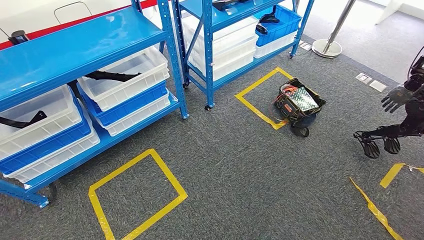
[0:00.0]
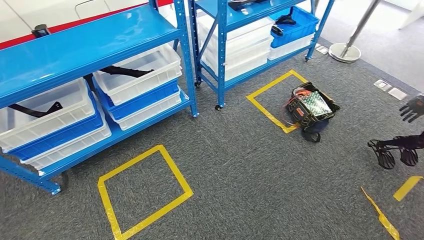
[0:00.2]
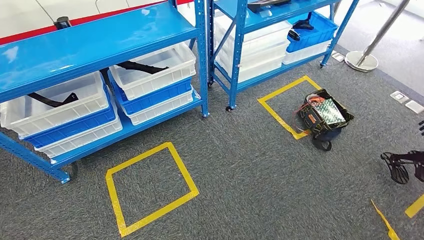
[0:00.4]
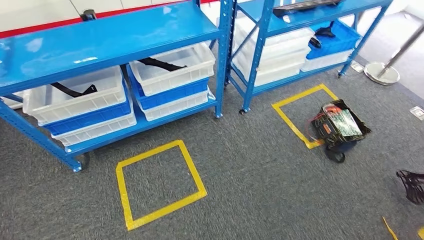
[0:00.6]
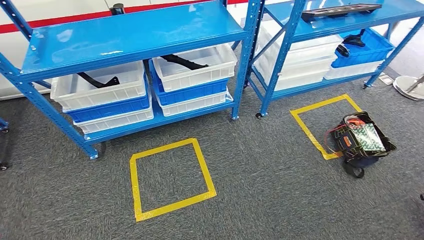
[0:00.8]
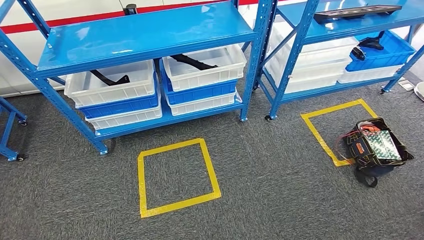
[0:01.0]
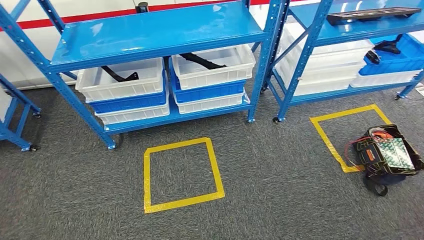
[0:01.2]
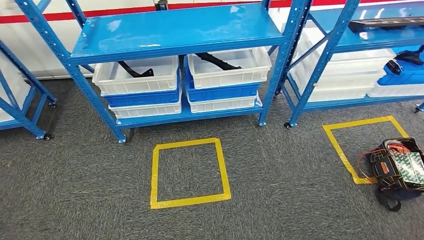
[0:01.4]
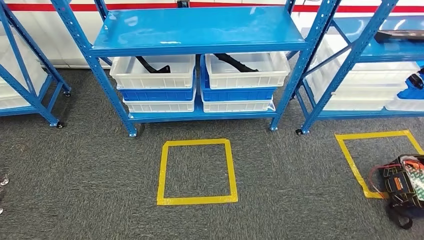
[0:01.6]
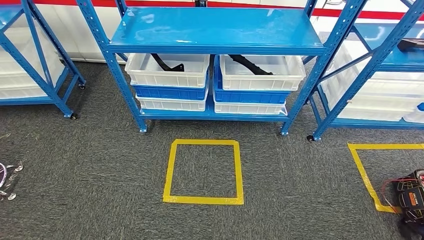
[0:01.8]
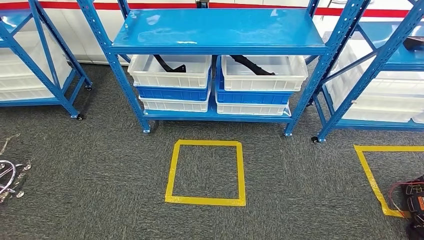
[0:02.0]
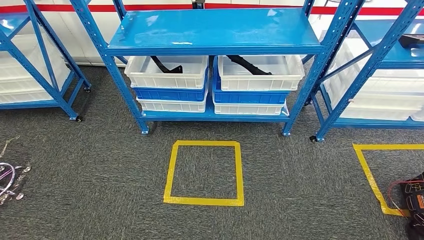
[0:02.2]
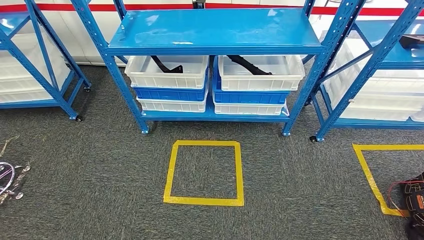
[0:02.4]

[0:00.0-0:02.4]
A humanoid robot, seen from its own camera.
Step, 0:00.0 to 0:02.4: Move to the initial position of the shelf.
